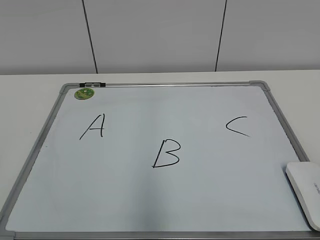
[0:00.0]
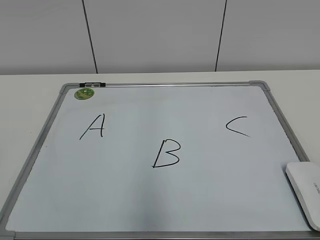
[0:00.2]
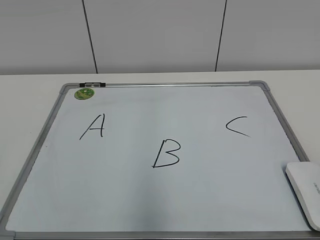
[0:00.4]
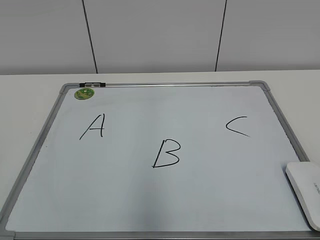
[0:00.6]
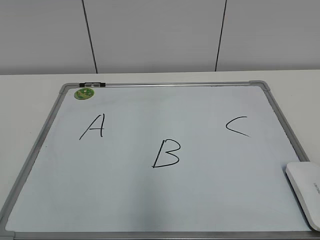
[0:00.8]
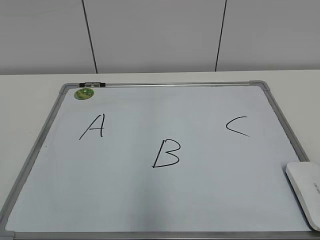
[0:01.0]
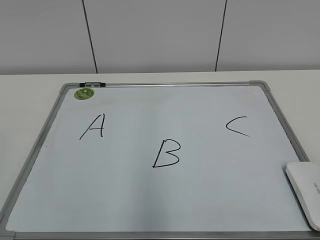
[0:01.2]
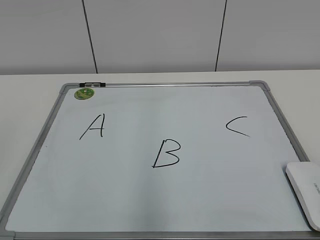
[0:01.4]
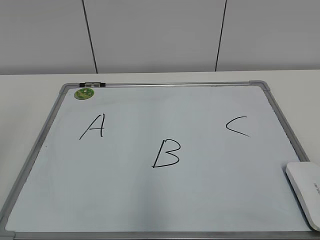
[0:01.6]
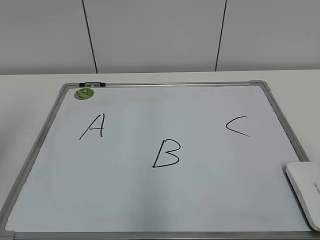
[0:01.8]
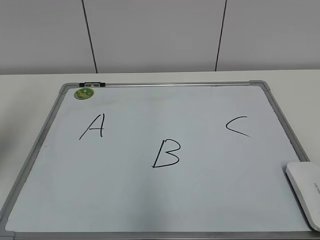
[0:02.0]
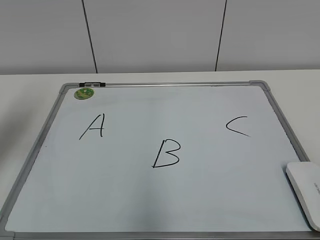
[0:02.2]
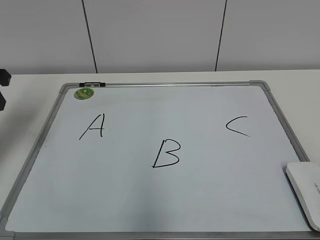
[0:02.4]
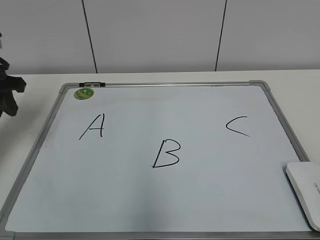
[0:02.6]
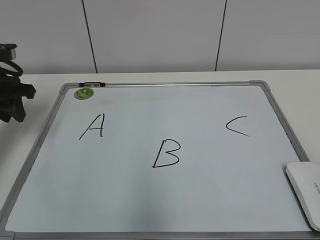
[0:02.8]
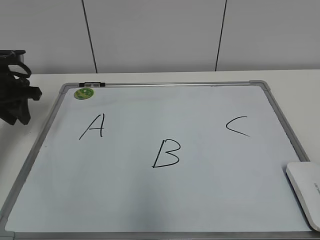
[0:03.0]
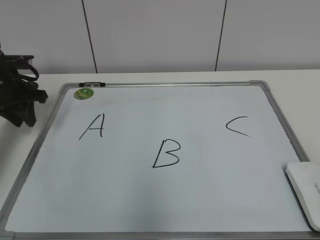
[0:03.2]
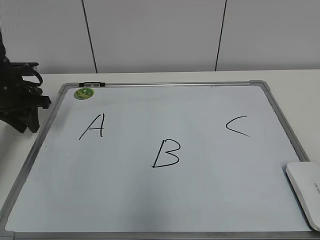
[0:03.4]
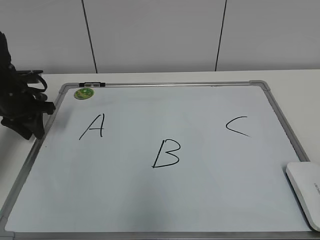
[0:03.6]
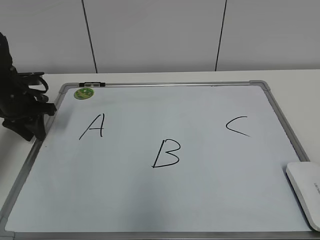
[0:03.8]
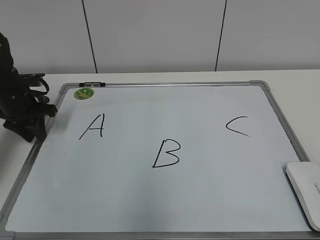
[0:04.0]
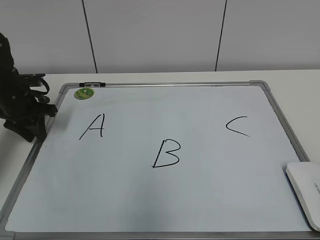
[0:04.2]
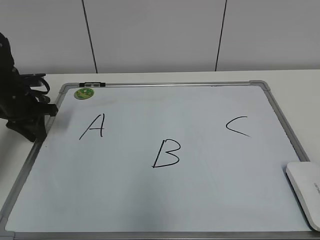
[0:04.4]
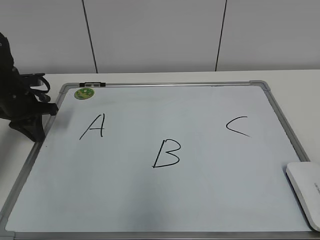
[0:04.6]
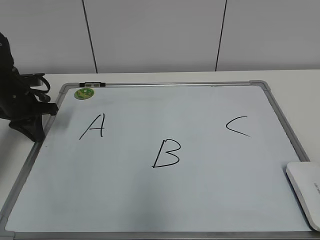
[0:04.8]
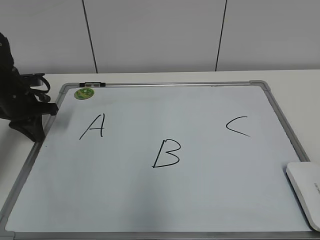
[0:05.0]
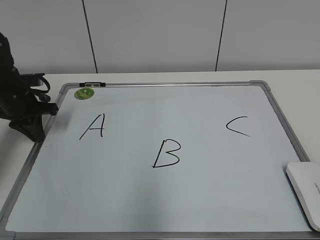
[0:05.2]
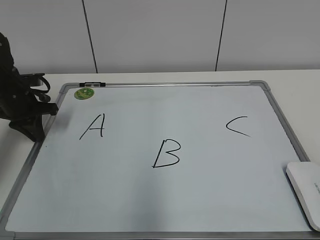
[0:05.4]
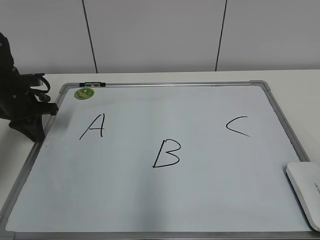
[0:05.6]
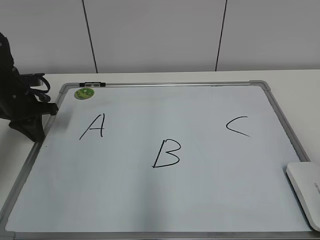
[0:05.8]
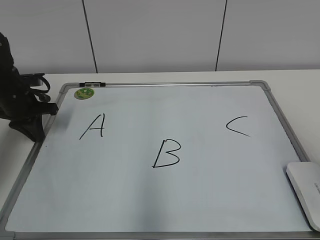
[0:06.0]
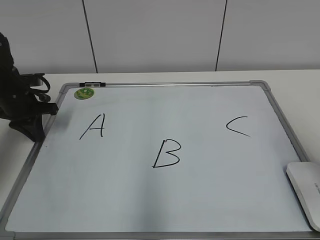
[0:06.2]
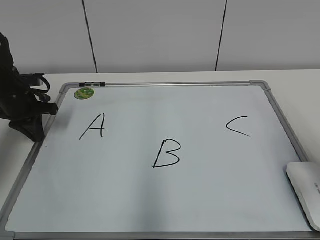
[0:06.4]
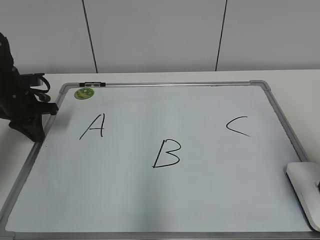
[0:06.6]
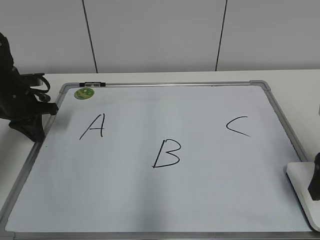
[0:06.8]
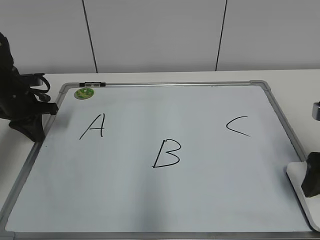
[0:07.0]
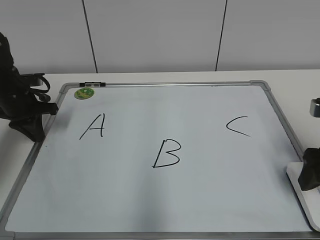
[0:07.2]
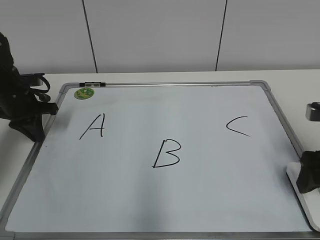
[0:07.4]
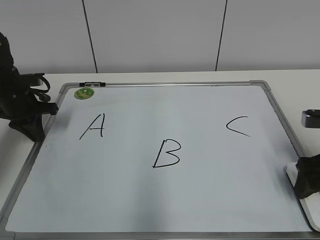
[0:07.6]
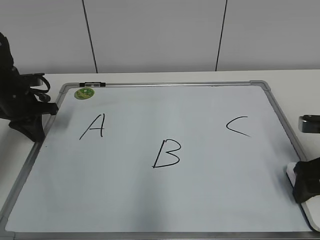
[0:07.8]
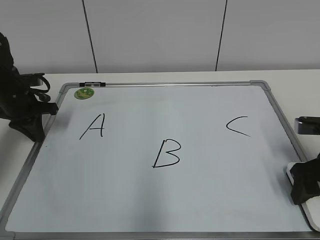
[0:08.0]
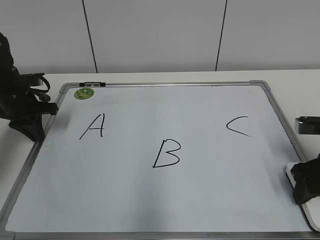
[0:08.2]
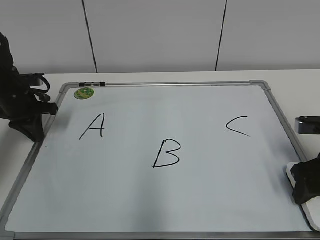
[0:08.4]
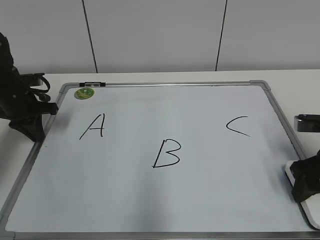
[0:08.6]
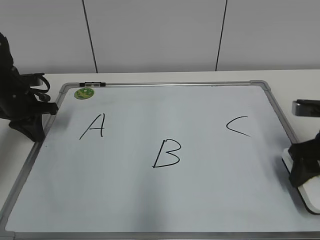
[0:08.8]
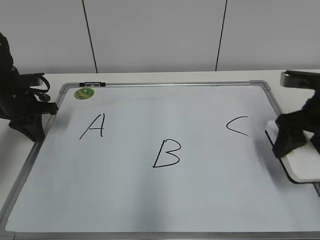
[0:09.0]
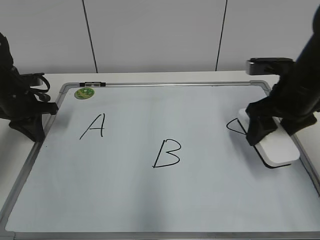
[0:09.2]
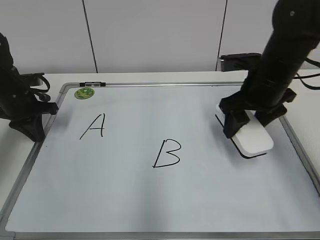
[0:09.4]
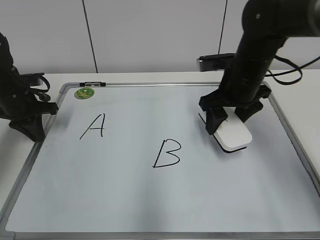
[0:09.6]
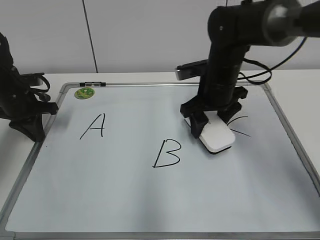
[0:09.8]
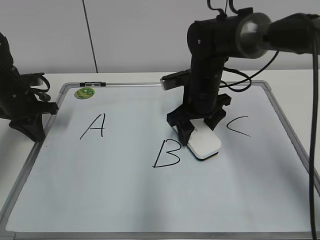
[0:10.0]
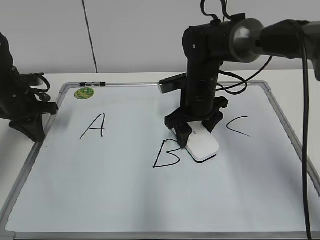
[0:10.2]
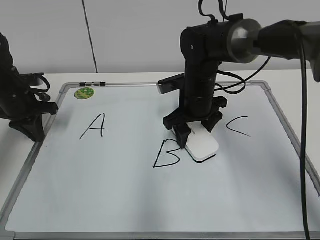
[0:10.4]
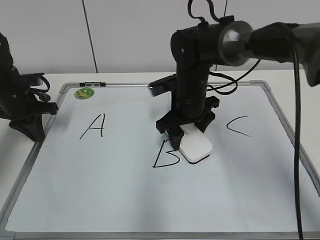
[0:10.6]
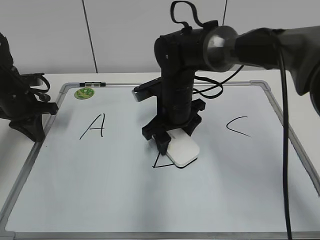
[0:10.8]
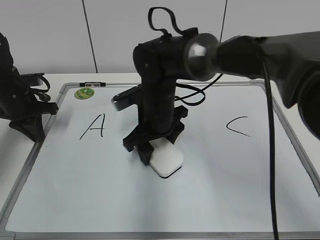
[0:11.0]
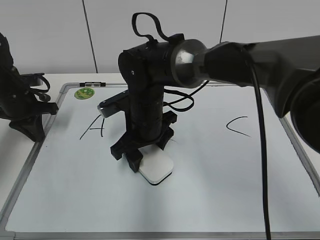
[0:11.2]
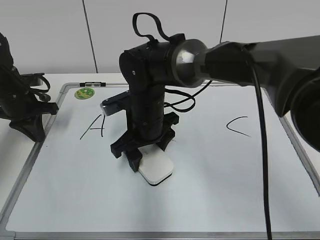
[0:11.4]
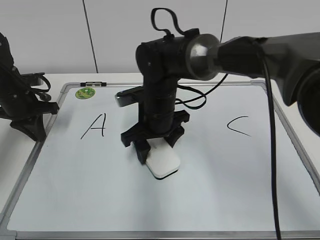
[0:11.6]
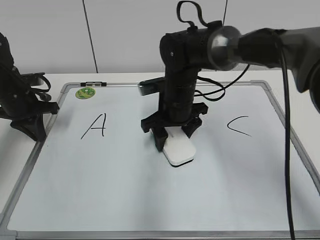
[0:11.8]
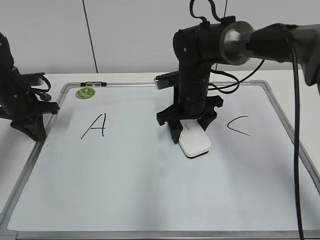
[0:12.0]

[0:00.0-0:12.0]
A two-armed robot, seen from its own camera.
Task of the whole recording: pick up the eraser on the blackboard and erase the letter "B".
Step, 0:00.0 to 0:04.4: Hold the drawing board steady with your left hand.
0:01.6 to 0:03.0: The left gripper moves forward and downward, approximately 35 cm.
0:03.0 to 0:04.4: The left gripper shifts about 5 cm downward.
0:06.0 to 0:07.6: The right gripper heads forward and downward, covering some 20 cm, and opens.
0:07.6 to 0:09.0: The right gripper changes place by approximately 5 cm, and closes.
0:09.0 to 0:10.4: The right gripper is displaced to the left and forward by roughly 20 cm.
0:10.4 to 0:12.0: The right gripper reaches roughly 10 cm to the left, then returns.

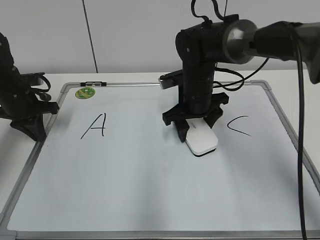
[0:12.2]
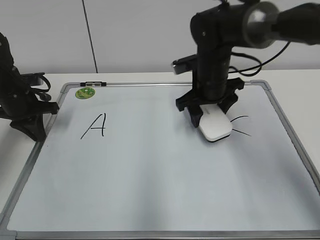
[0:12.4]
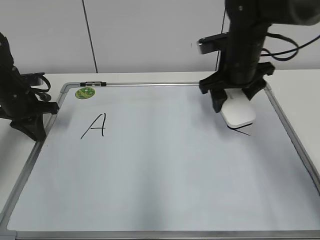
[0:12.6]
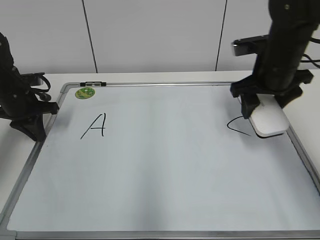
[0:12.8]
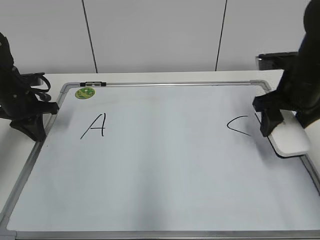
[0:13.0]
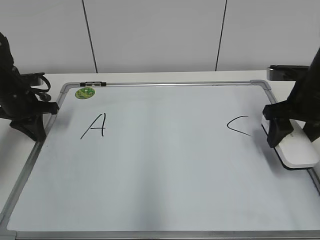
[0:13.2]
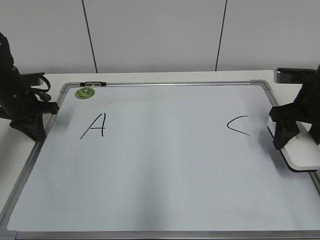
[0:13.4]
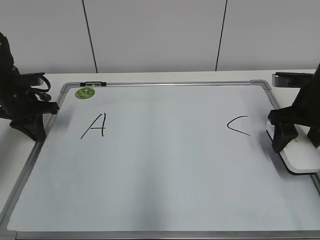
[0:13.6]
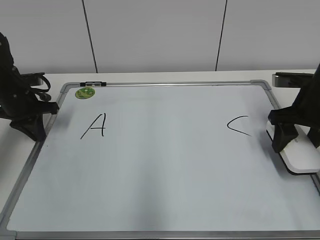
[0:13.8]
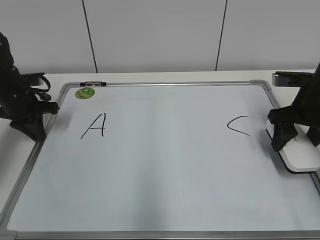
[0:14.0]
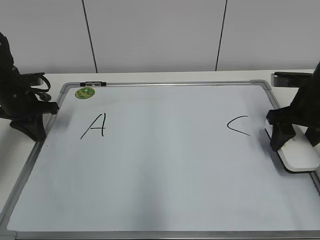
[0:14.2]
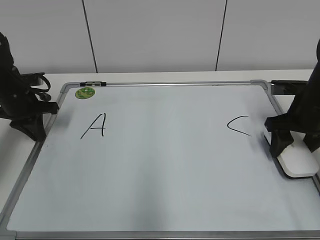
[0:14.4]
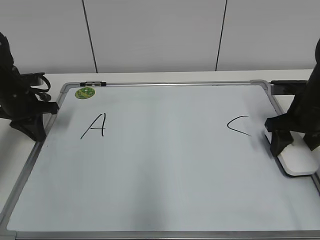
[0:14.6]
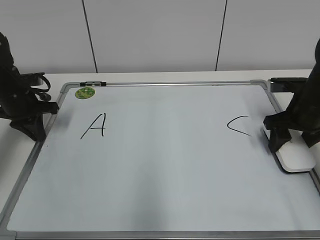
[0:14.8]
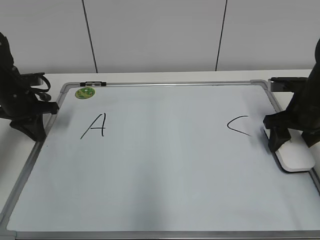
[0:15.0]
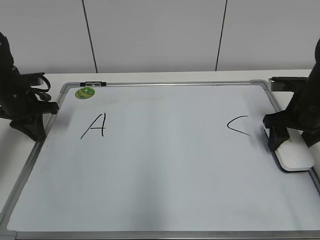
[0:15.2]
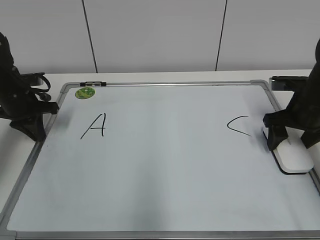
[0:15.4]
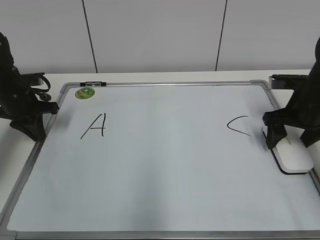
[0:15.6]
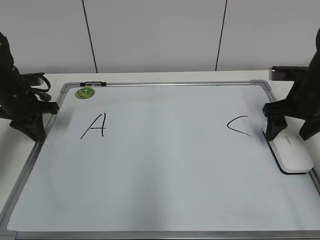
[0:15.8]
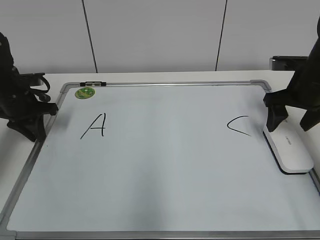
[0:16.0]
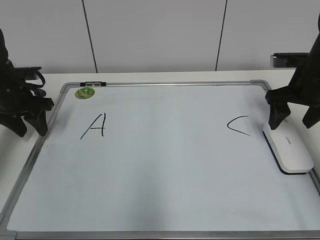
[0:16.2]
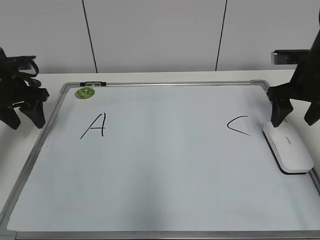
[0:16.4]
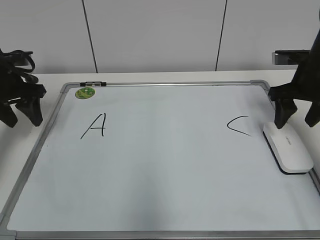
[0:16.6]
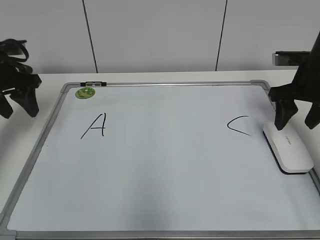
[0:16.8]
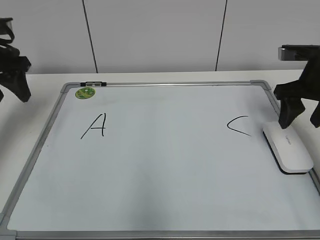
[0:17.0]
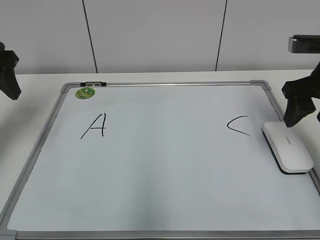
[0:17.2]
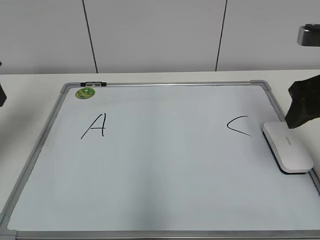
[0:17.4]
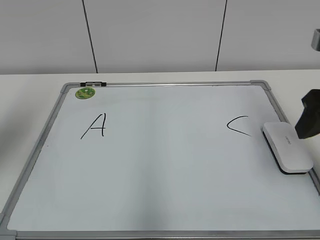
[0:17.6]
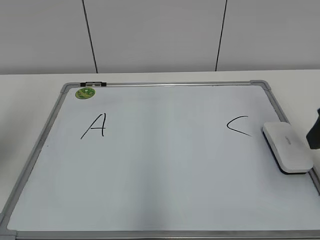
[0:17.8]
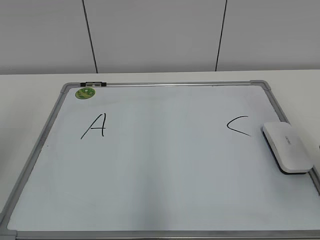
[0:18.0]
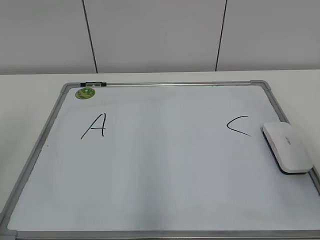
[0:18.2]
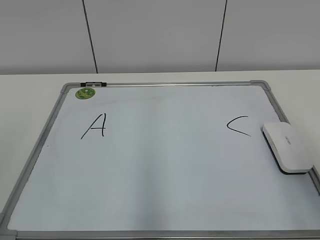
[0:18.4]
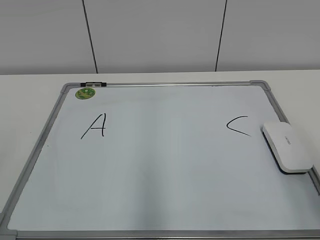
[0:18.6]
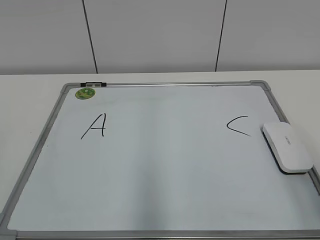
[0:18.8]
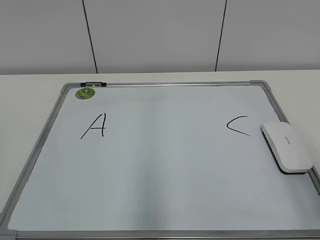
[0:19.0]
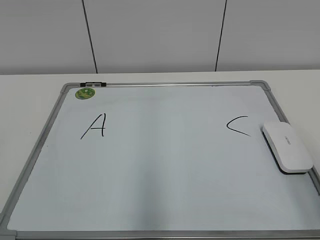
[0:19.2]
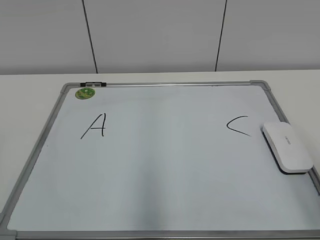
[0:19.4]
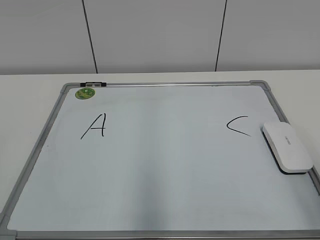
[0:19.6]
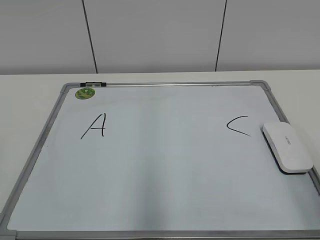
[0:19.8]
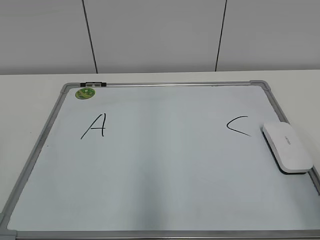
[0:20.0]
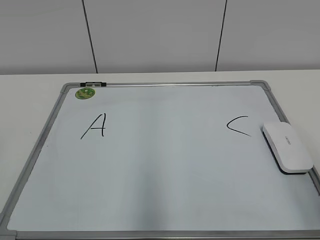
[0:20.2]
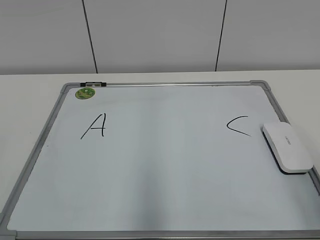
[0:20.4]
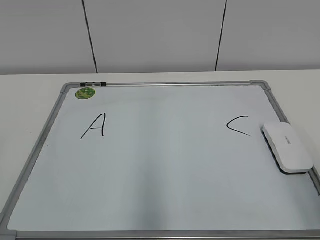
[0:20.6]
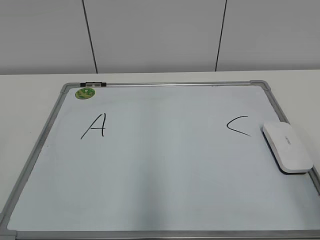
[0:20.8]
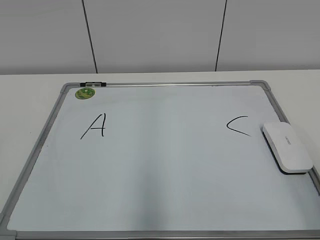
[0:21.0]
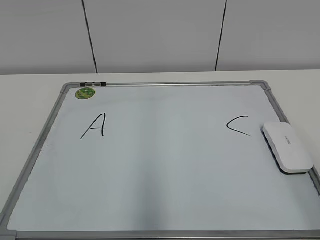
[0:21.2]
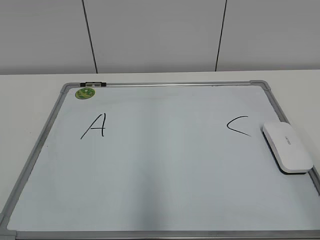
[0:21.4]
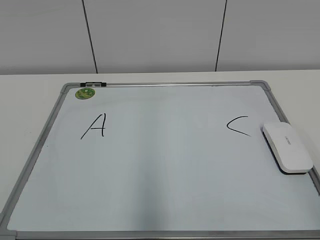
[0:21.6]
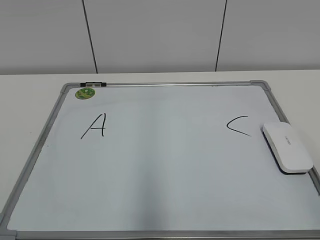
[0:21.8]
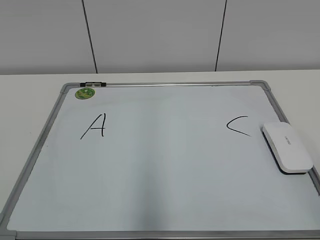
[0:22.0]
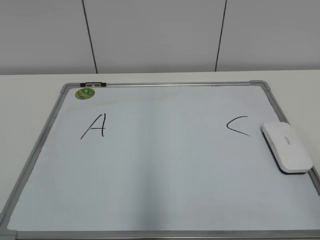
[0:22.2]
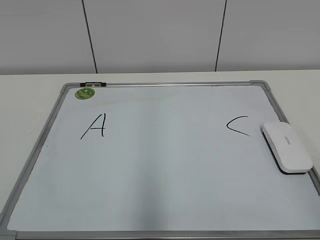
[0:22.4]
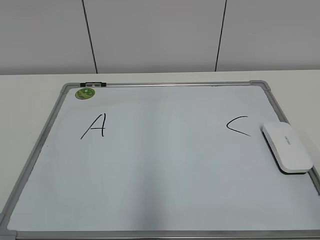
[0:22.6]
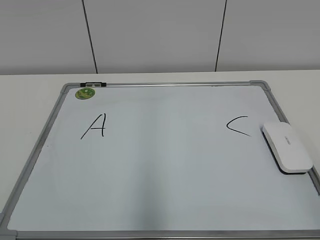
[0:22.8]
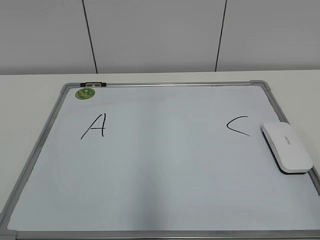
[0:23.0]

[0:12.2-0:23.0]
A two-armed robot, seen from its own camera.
Task of the whole recording: pick up the eraser on the blackboard and erase the letter "B".
Step, 0:12.4 to 0:15.6: Put down the eraser with your right hand.
0:12.2 to 0:13.8: The right gripper heads to the right, covering some 20 cm.
0:13.8 to 0:15.2: The grippers make only small movements.
0:15.2 to 0:16.8: The left gripper travels upward by approximately 10 cm, and opens. The right gripper goes some 5 cm upward, and opens, then closes again.
0:16.8 to 0:18.4: Both grippers move backward, approximately 30 cm.
